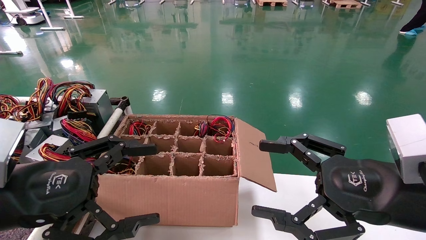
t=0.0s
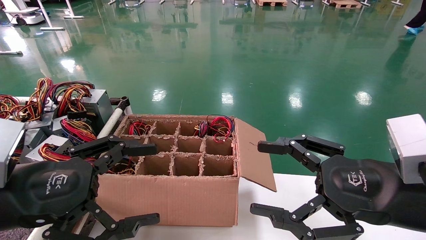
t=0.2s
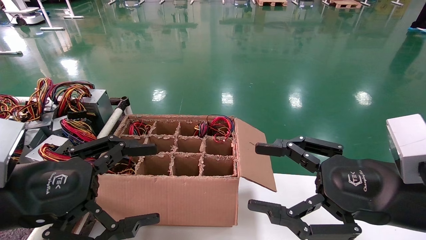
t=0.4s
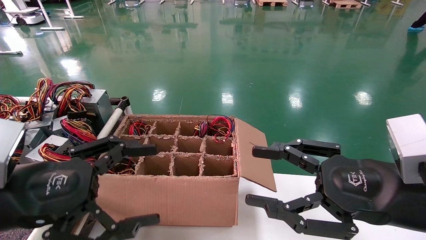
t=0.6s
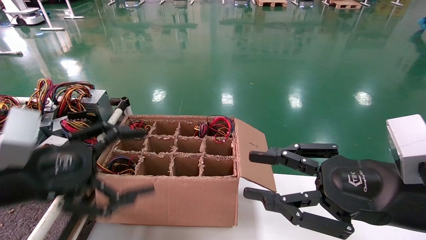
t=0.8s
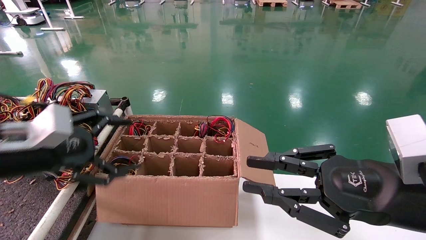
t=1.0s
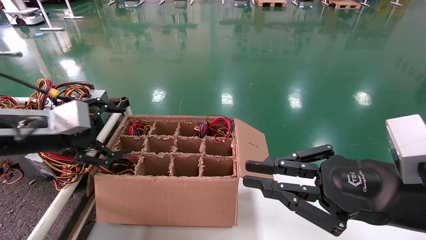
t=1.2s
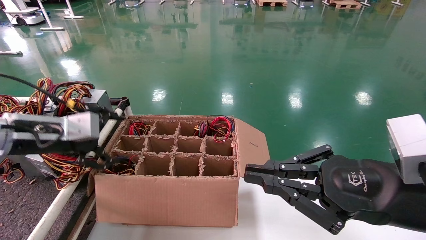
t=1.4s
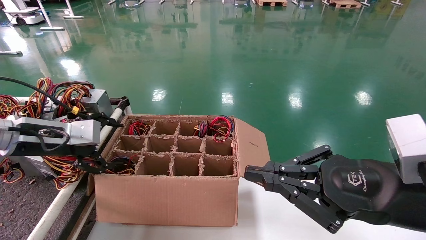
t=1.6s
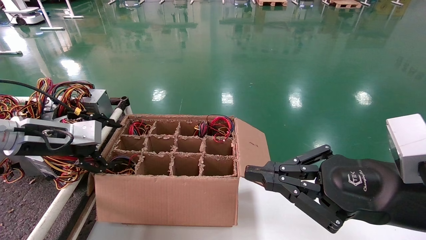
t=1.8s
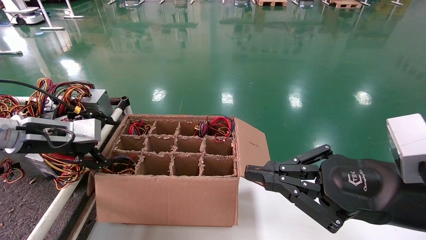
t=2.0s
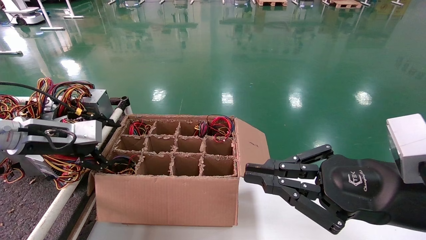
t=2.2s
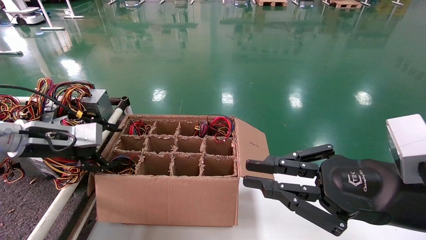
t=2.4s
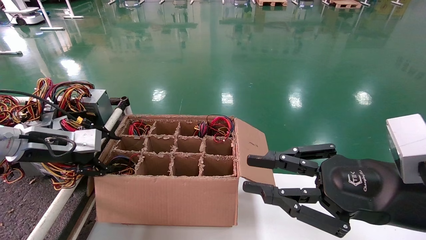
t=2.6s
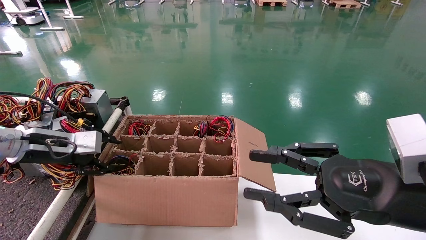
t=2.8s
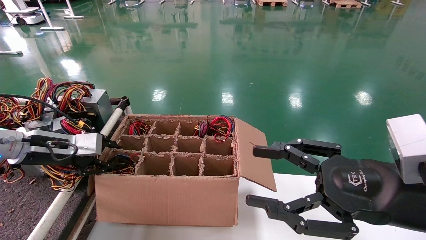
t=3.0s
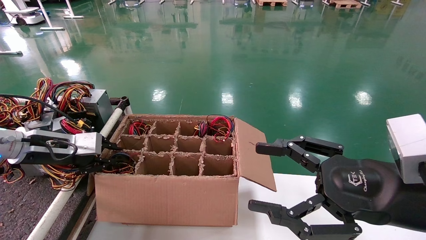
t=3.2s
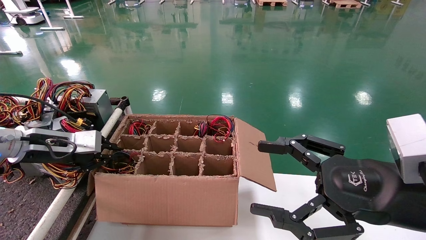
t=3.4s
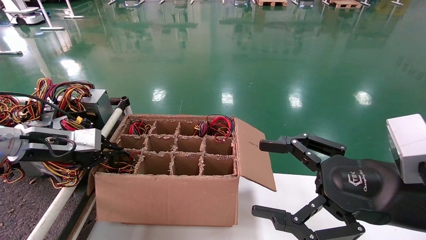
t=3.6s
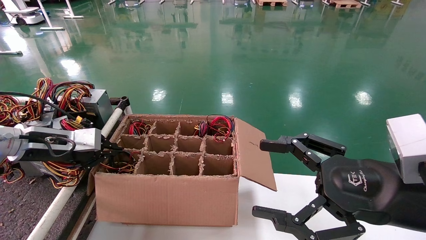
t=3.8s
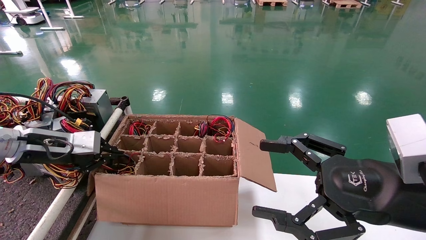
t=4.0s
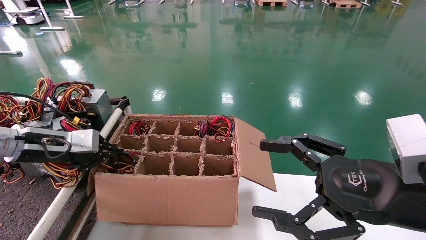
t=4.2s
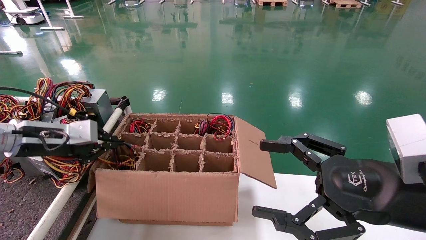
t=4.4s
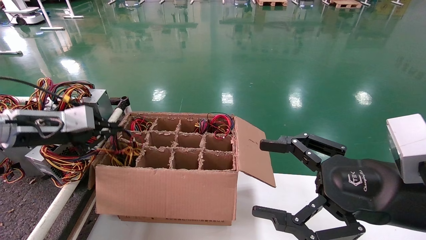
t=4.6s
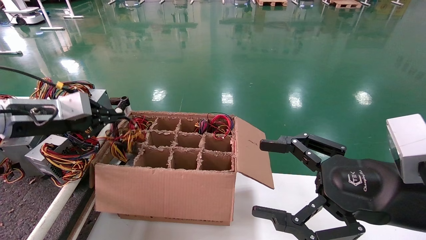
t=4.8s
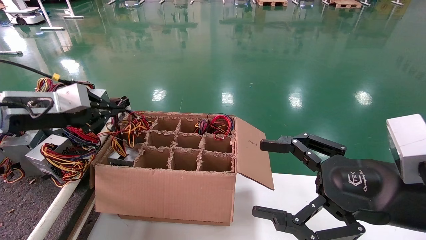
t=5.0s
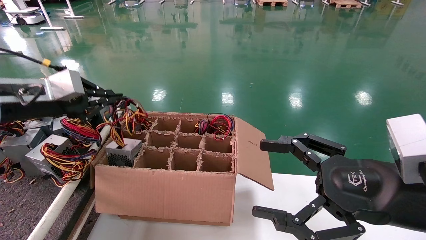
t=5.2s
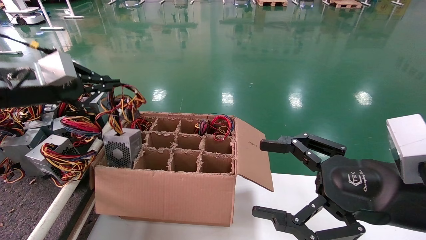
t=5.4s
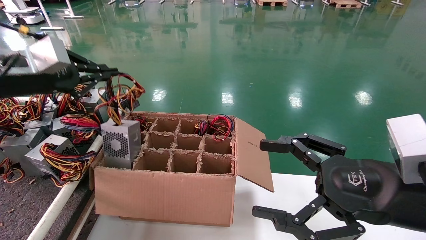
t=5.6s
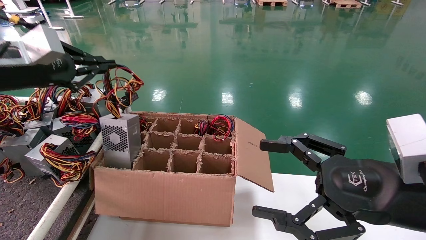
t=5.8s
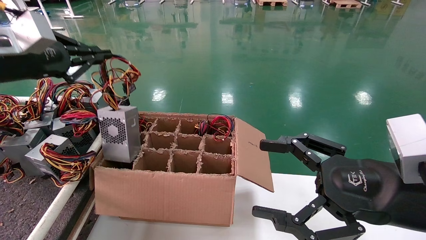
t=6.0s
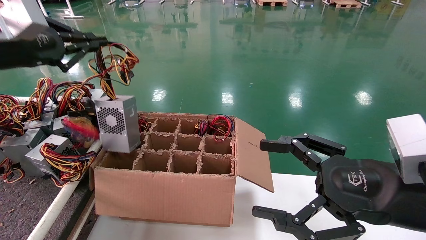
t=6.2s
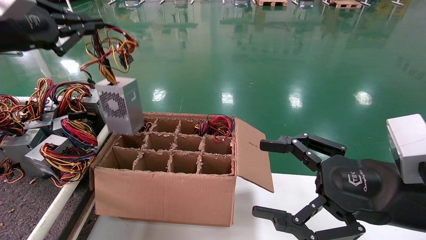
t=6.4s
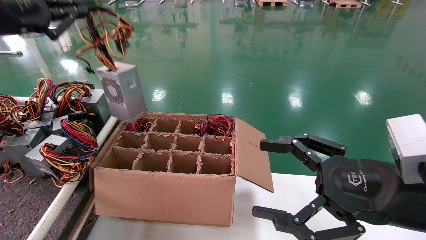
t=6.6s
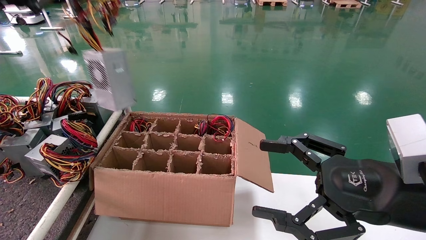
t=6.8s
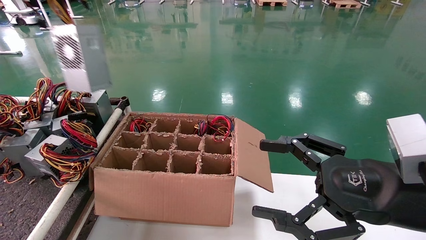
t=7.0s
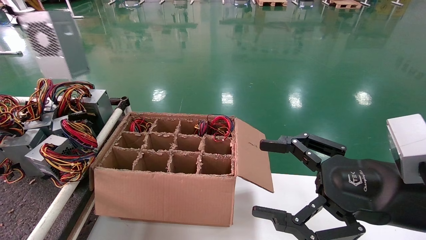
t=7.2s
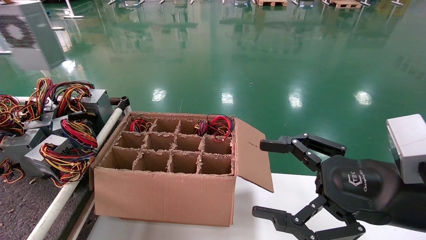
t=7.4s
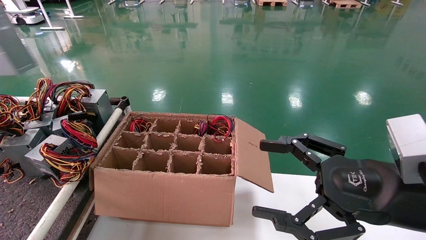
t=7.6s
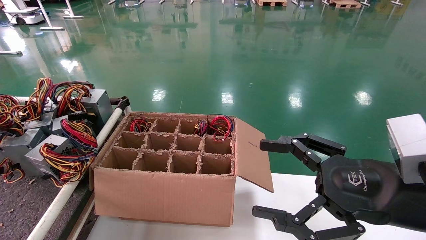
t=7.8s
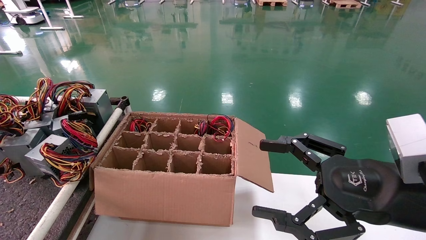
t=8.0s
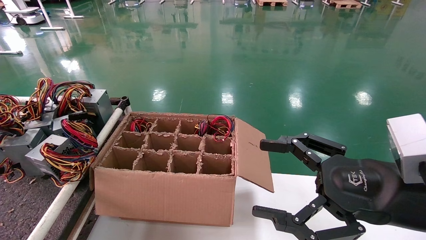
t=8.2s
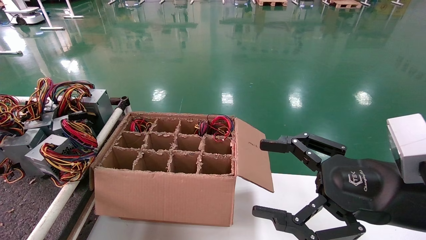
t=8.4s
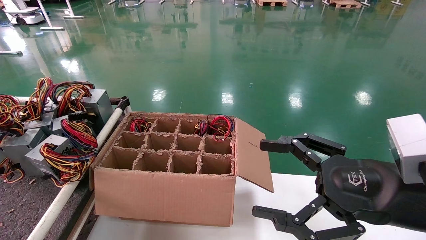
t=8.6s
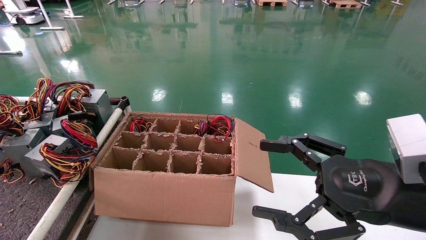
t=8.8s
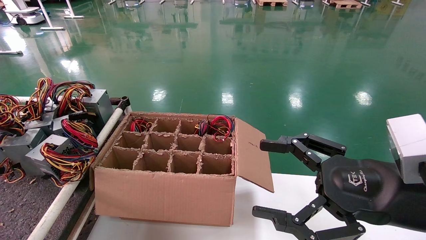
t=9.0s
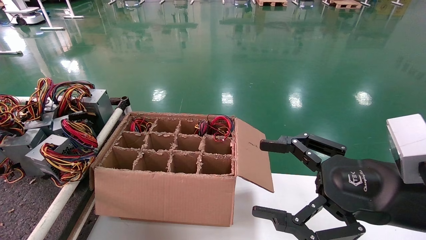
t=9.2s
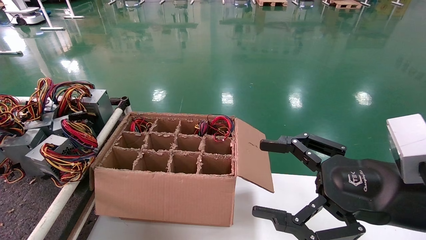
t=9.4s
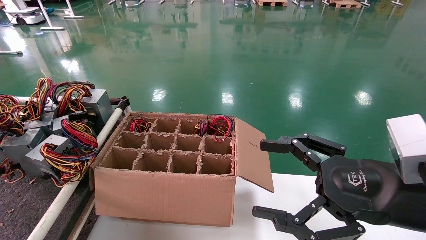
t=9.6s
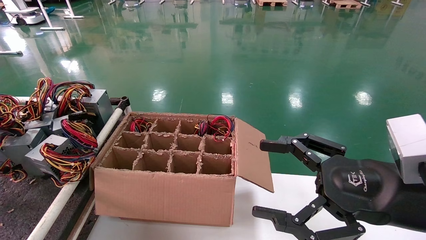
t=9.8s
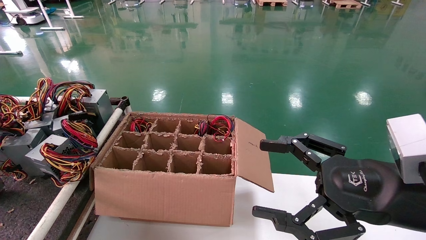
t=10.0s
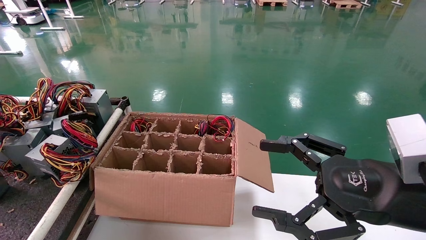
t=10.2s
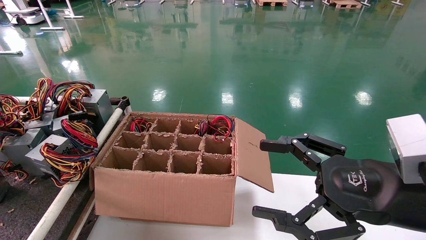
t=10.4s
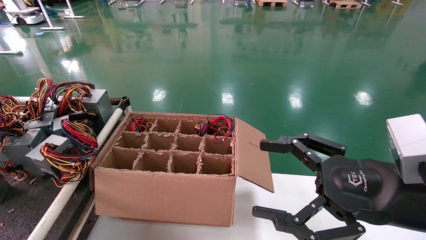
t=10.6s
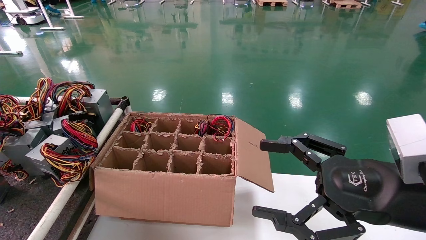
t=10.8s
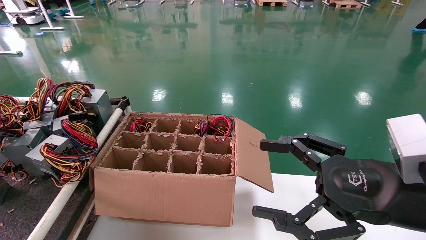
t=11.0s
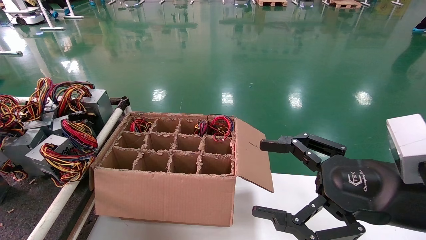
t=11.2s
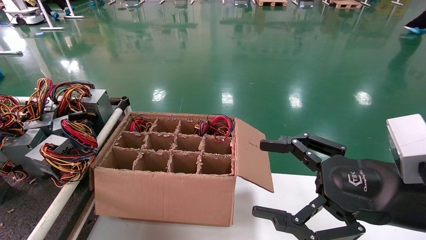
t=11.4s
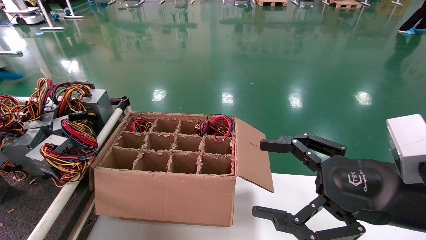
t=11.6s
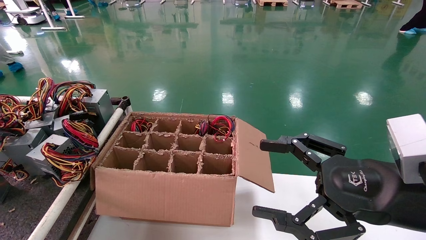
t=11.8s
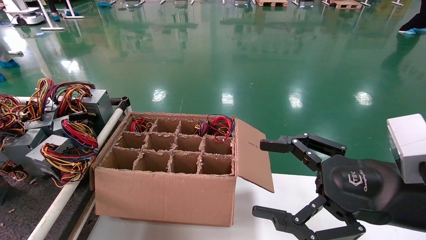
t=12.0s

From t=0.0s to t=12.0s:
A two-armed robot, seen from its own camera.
Step, from t=1.0s to t=3.2s: Grab and lift the power supply from the large box.
Step, from t=3.4s to t=11.2s: Place the power supply on the operating table.
From t=0.0s to t=1.6s: The left gripper heads forward, covering roughly 15 cm, while the right gripper closes.
From t=1.6s to t=3.0s: The right gripper opens up; the left gripper closes up.
From t=3.0s to t=4.4s: The right gripper opens. The left gripper closes.
From t=4.4s to t=6.0s: The left gripper heads upward, covering about 15 cm.
From t=6.0s to t=7.6s: The left gripper moves to the left, upward and backward, roughly 25 cm.
From t=7.6s to t=9.0s: The left gripper moves downward, to the left and backward, roughly 20 cm.
From t=9.0s to t=10.4s: The left gripper moves downward and forward, about 10 cm.
From t=10.4s to t=12.0s: The left gripper goes roughly 10 cm upward and to the right, and opens up.

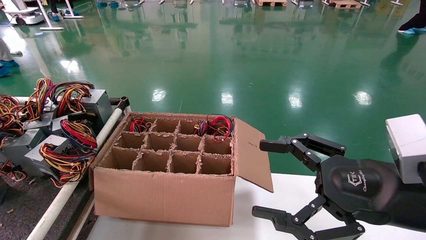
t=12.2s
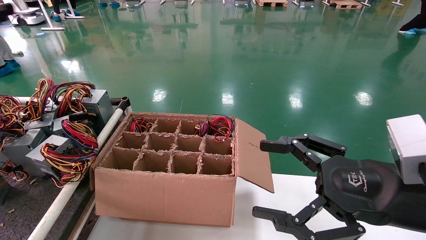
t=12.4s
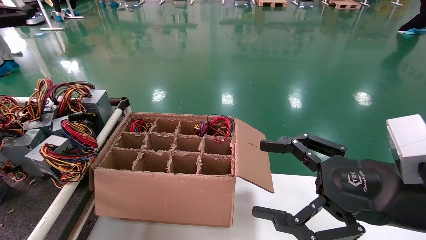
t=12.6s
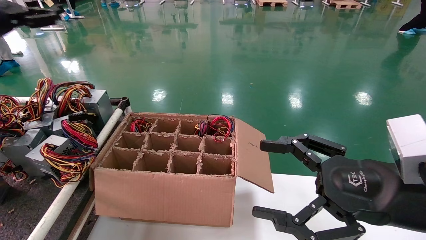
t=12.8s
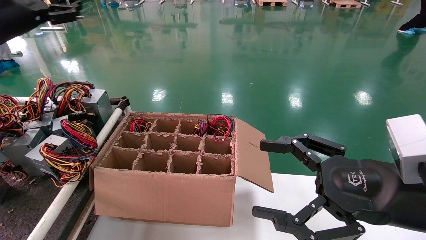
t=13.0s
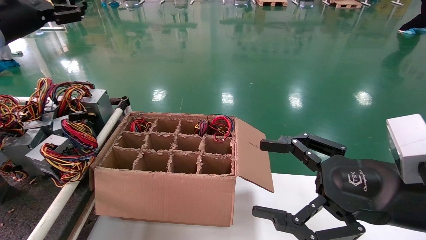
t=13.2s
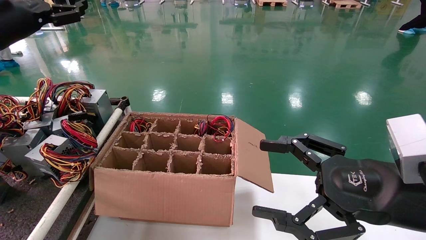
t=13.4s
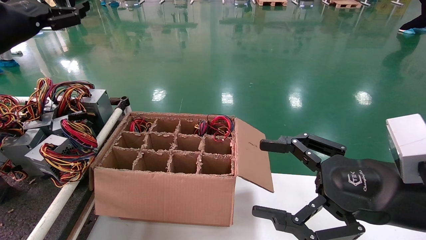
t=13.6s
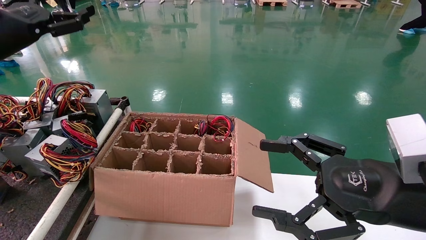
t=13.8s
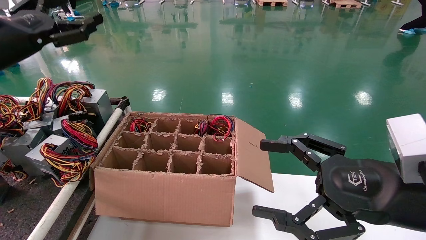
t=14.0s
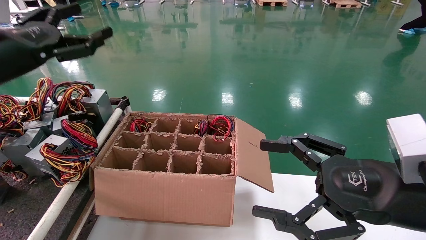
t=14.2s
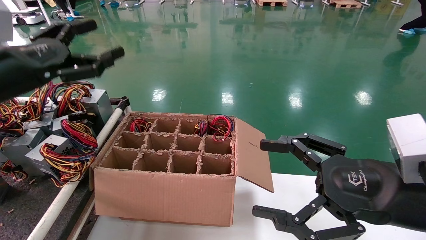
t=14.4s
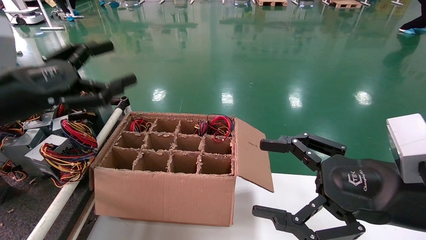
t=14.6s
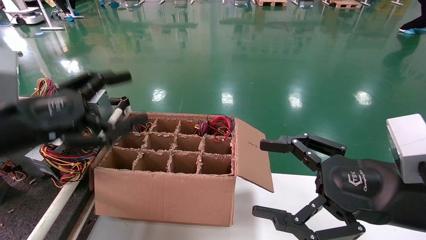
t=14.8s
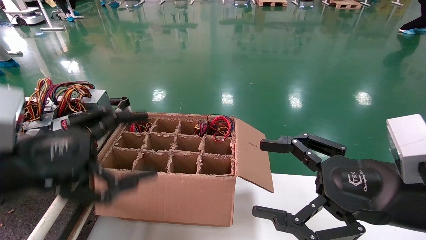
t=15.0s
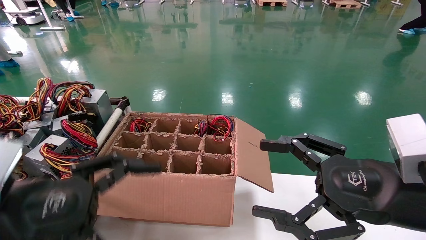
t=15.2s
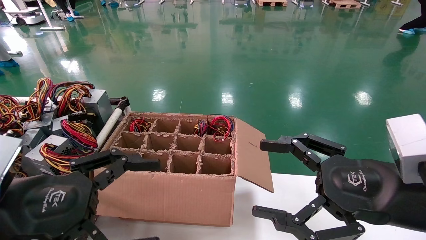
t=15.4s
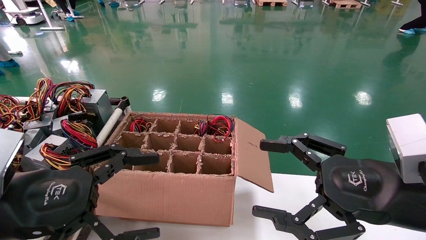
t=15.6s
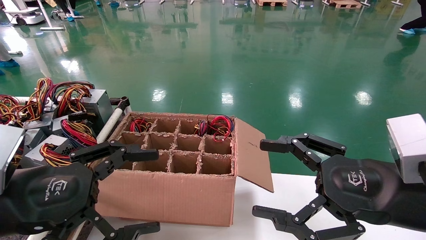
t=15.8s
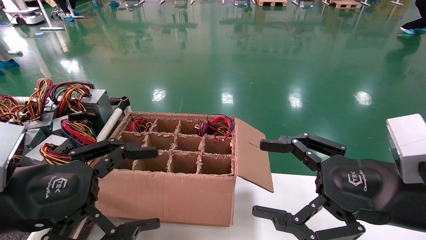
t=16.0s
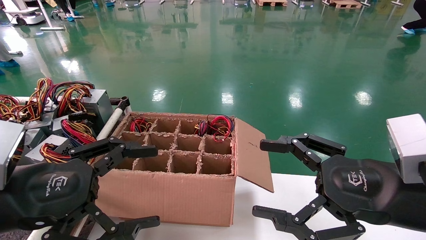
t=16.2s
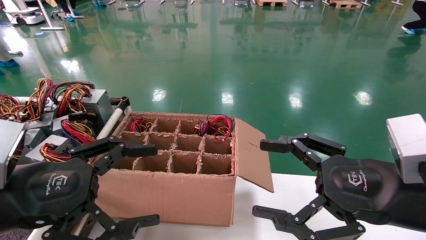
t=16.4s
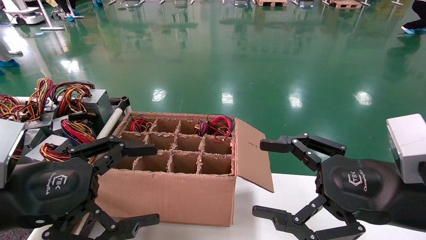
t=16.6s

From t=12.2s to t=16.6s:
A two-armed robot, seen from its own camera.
From t=12.2s to t=13.6s: The left gripper moves to the right and forward, about 20 cm.
From t=13.6s to t=15.2s: The left gripper moves backward, downward and to the right, some 30 cm.
From t=15.2s to t=16.6s: The two grippers keep their place.
